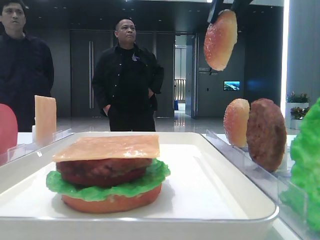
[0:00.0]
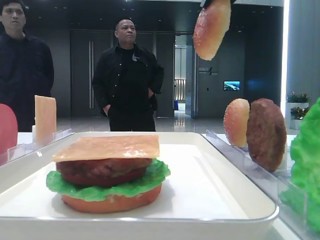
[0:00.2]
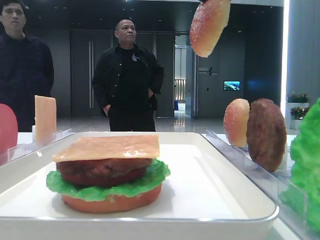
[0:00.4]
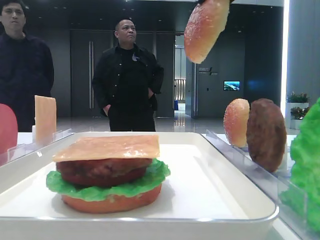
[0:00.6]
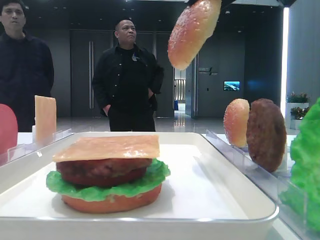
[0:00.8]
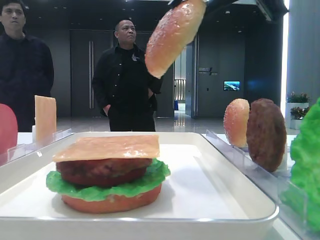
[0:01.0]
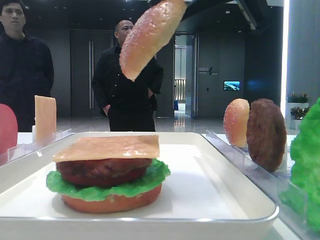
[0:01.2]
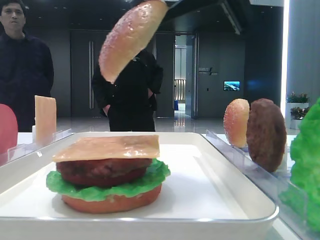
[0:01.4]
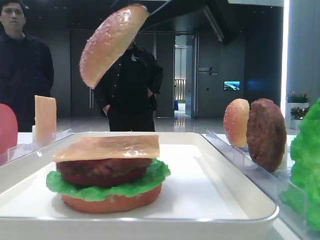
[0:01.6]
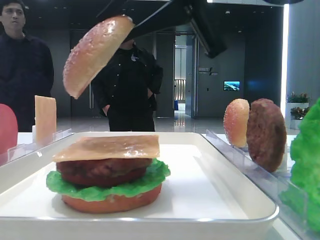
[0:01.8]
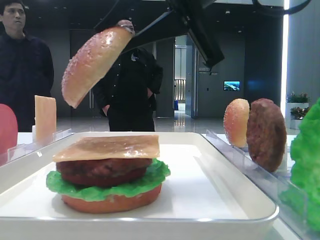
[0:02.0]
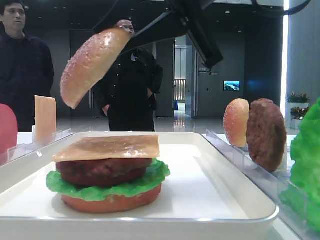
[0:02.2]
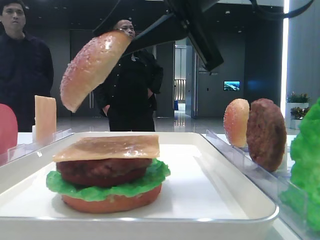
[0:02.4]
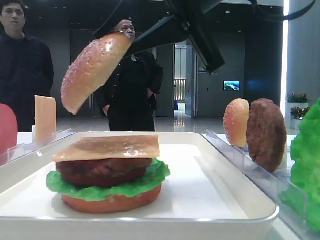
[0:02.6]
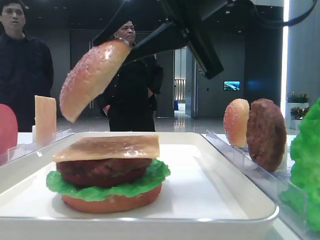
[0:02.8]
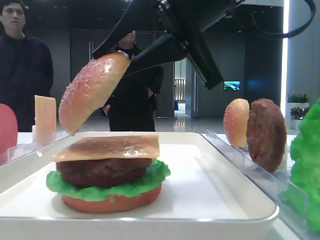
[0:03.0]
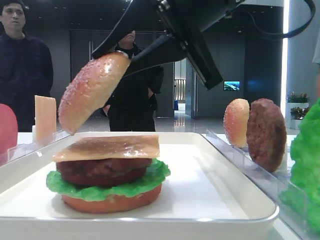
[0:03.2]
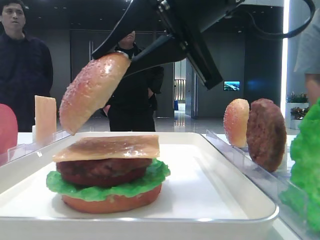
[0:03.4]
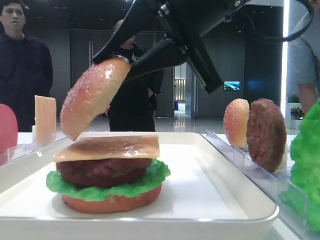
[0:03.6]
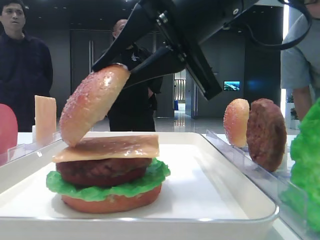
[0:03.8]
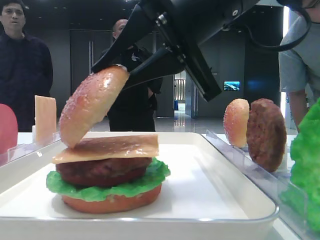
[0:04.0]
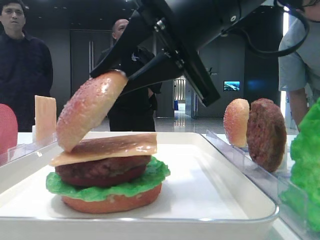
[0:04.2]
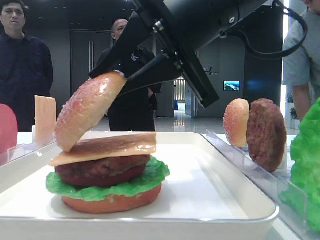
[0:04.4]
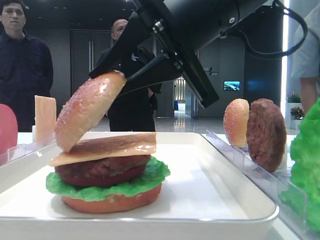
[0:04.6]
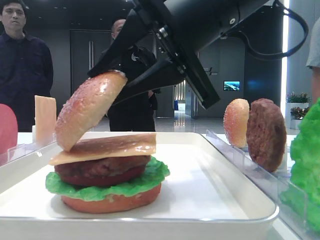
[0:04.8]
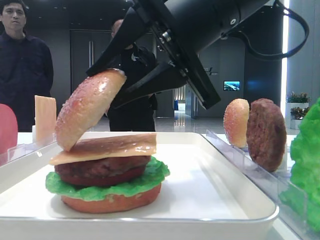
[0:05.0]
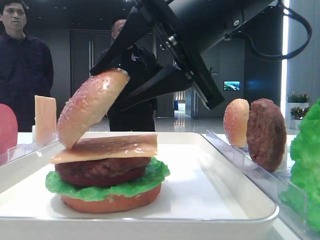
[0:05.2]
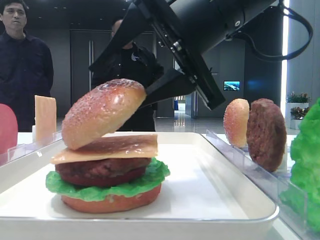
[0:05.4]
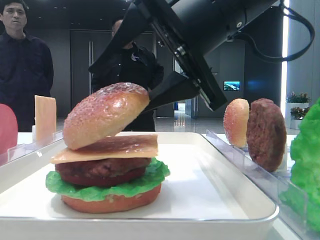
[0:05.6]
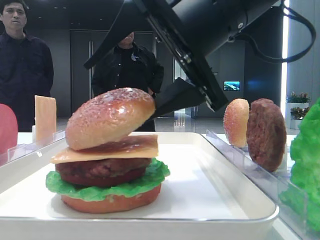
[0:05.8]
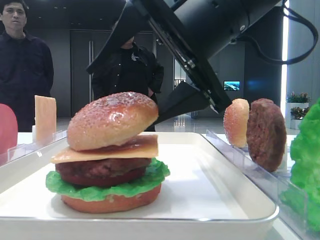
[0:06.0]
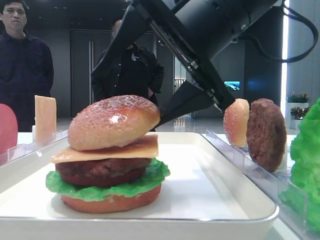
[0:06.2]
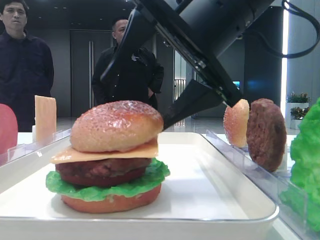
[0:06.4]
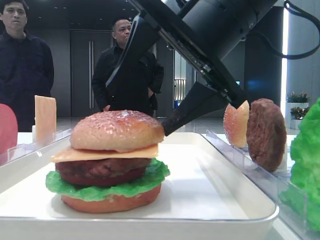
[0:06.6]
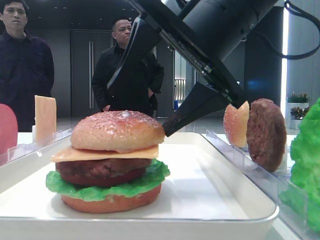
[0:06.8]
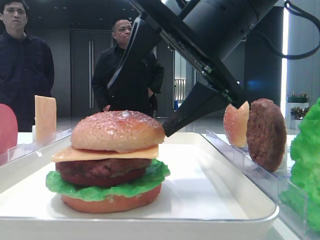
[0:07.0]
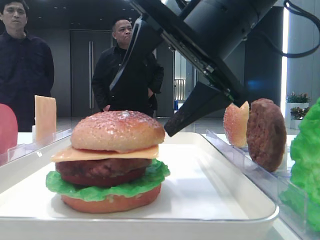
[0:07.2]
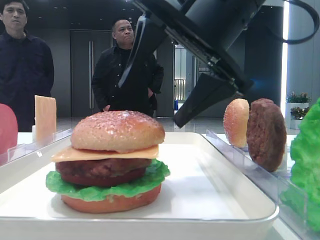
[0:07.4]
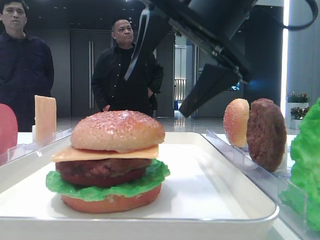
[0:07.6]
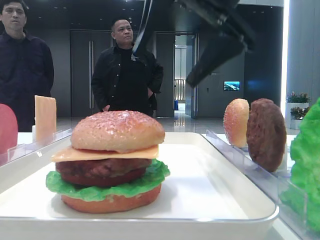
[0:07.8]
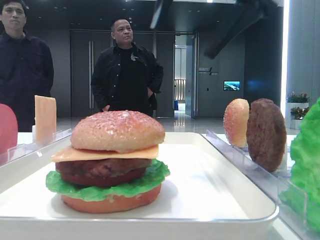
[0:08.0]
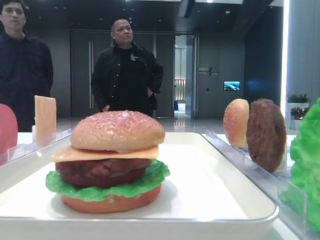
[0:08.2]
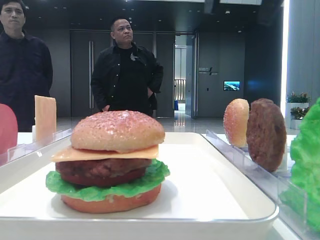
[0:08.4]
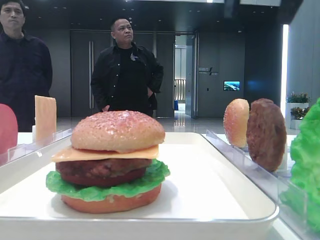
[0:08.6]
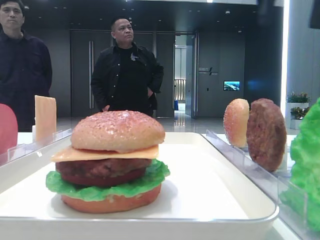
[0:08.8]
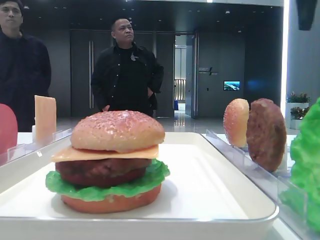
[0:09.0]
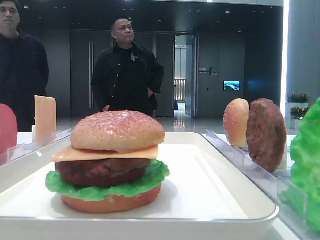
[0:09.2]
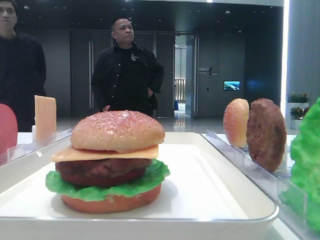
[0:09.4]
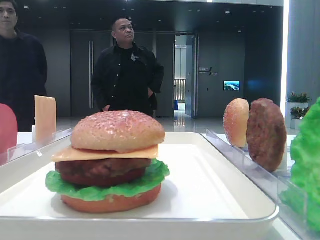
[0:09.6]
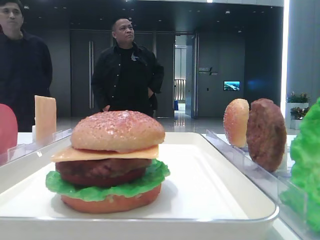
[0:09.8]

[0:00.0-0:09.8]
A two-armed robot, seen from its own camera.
Step, 0:00.0 to 0:07.2: Place the top bread slice on the cheese with the right hand.
0:00.0 to 0:01.4: The right gripper heads backward and downward, covering some 15 cm.
0:01.4 to 0:02.8: The right gripper moves approximately 5 cm.
0:02.8 to 0:04.2: The grippers move only a little.
0:04.2 to 0:05.6: The right gripper opens.
0:05.6 to 0:07.0: The grippers move only a little.
0:07.0 to 0:08.4: The right gripper goes some 15 cm upward.

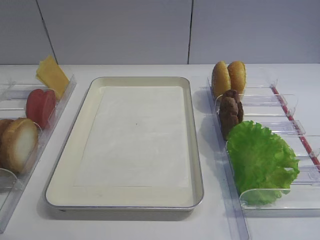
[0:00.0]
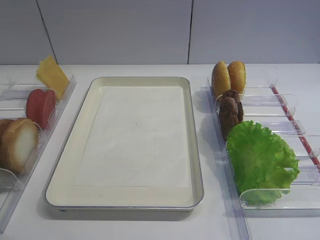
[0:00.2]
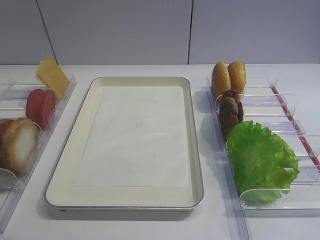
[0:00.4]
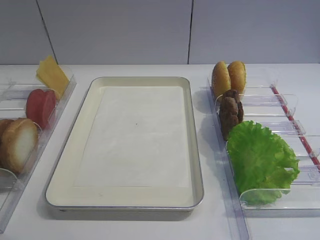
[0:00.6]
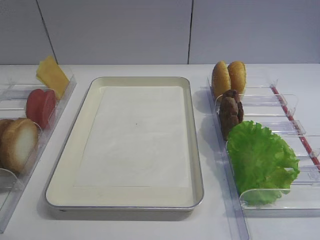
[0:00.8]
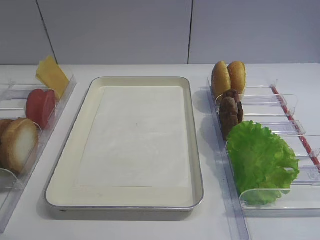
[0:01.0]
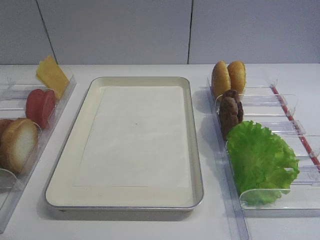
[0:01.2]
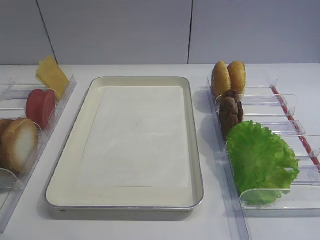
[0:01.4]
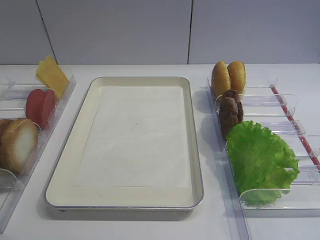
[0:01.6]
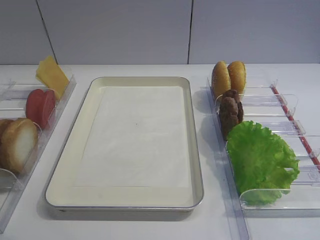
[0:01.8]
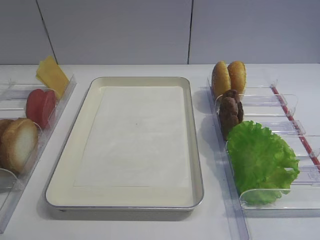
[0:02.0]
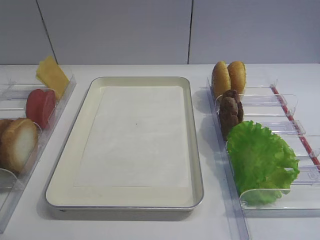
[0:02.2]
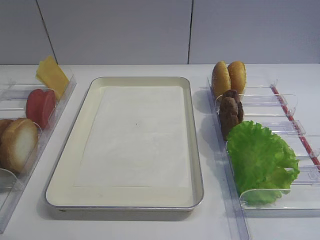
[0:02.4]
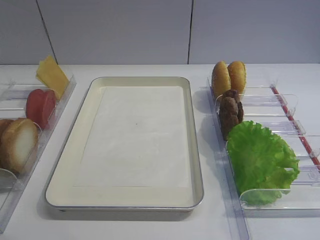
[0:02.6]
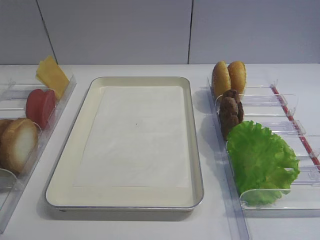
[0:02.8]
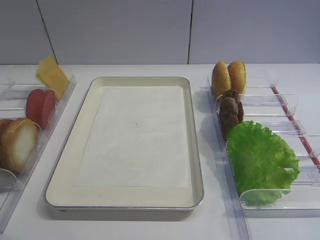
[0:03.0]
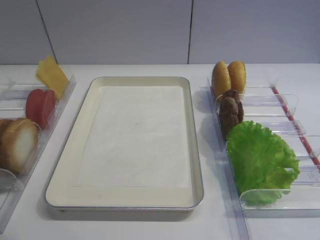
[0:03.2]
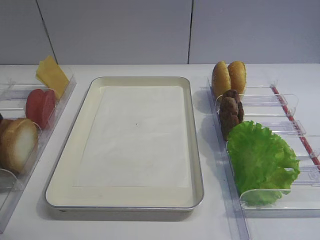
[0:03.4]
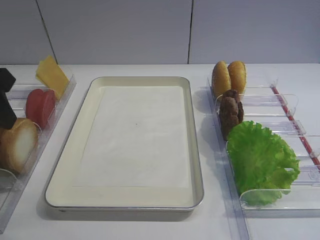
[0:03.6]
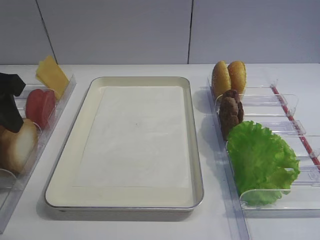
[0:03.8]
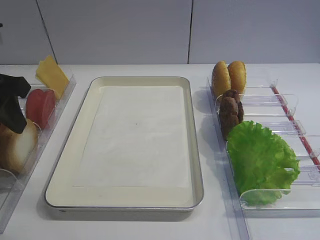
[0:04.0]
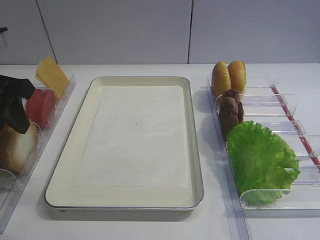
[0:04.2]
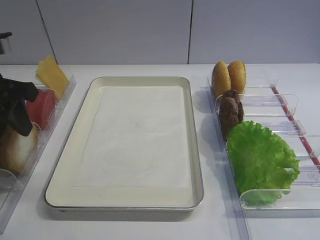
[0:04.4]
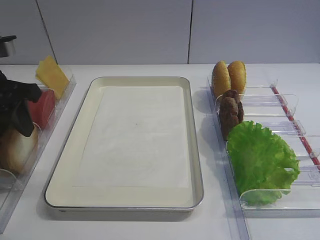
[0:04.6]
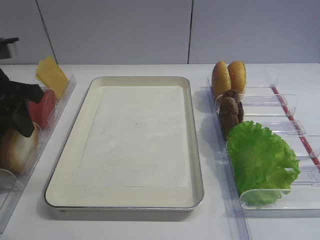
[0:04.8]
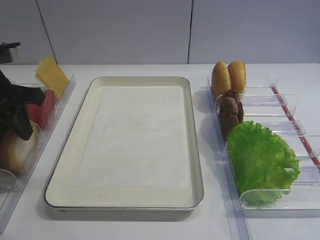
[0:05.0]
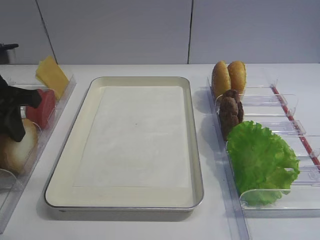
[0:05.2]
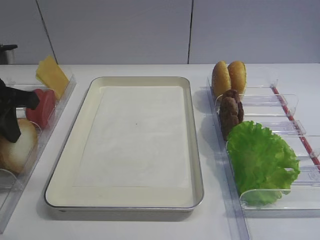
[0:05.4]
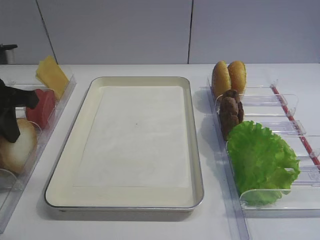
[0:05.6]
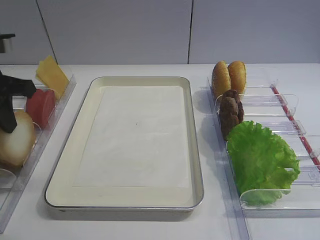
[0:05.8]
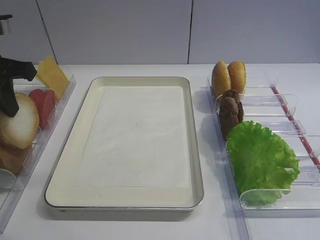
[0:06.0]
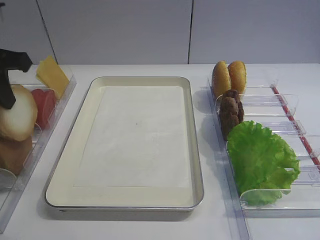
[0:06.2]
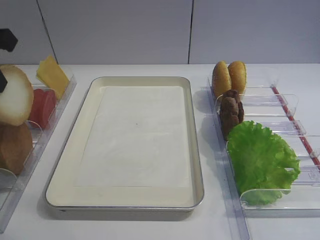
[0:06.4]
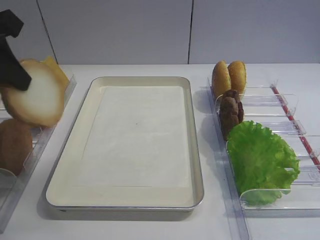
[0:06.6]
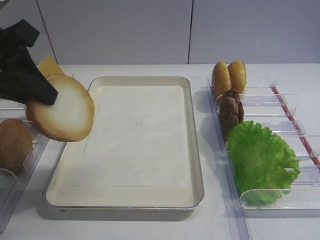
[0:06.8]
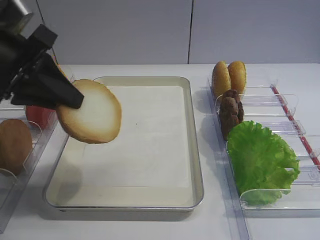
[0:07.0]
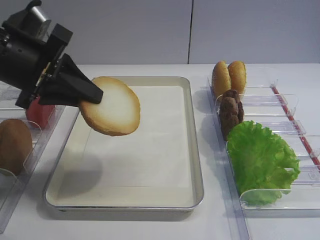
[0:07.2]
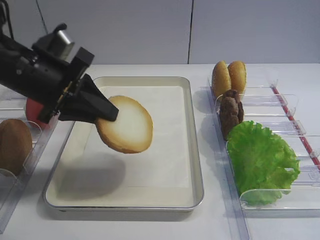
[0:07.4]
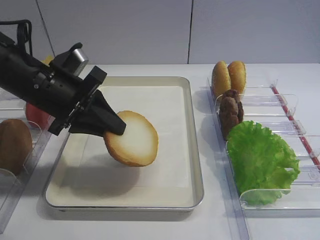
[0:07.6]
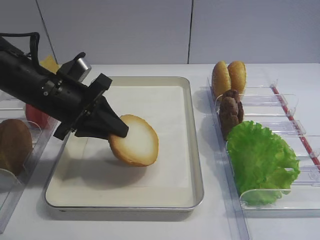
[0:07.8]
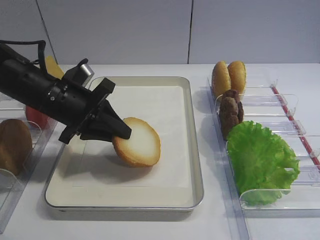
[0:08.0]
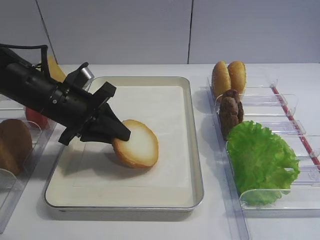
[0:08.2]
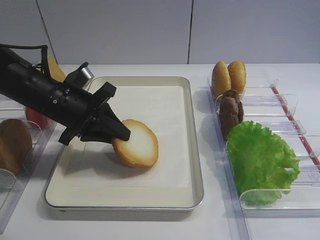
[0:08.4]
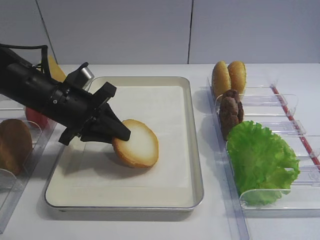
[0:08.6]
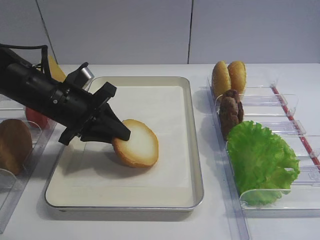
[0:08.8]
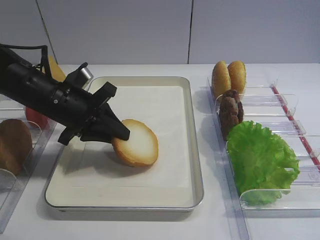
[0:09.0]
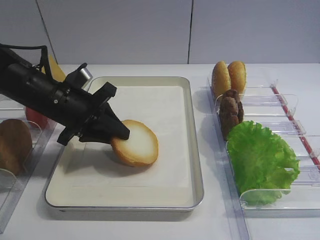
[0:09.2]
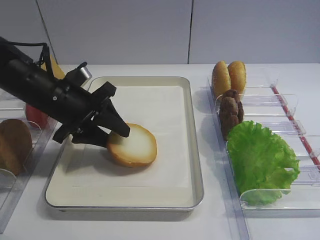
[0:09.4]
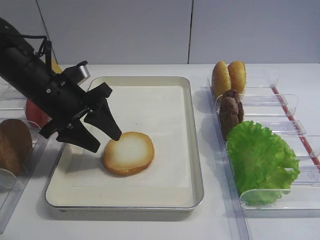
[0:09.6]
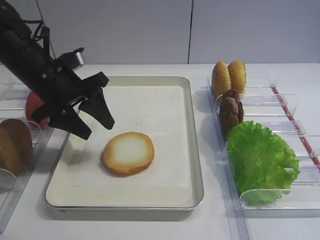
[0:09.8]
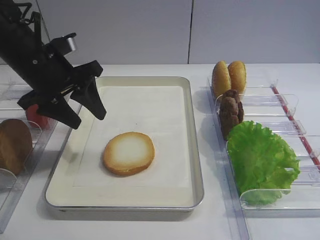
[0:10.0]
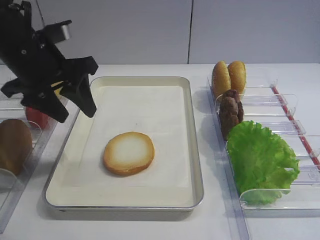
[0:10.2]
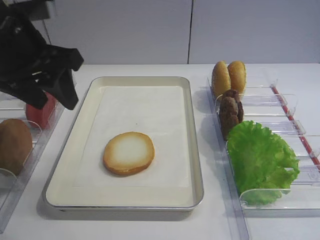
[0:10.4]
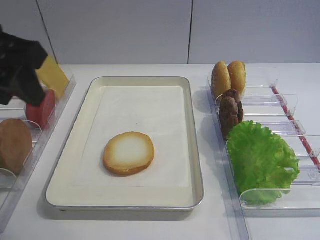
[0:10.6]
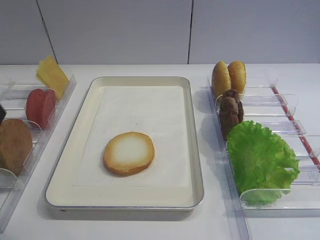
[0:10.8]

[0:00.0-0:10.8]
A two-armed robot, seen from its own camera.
Step, 0:00.0 to 0:06.2: Pick up the bread slice with the left gripper.
Step, 0:06.4 to 0:09.8: Place the bread slice on the tray with the left gripper.
0:03.0 to 0:04.6: The left gripper is displaced forward by approximately 15 cm.
0:04.6 to 0:06.2: The left gripper closes.
0:06.2 to 0:07.8: The left gripper moves downward and to the right, about 15 cm.
0:07.8 to 0:09.2: The grippers move only a little.
0:09.2 to 0:10.8: The left gripper goes approximately 20 cm upward and backward, and opens.
